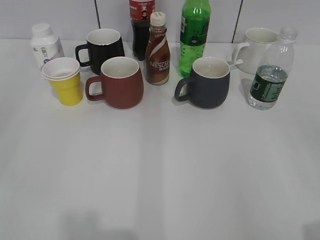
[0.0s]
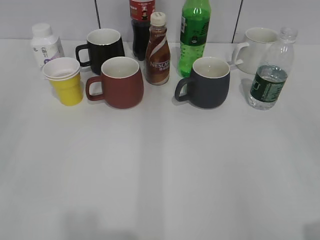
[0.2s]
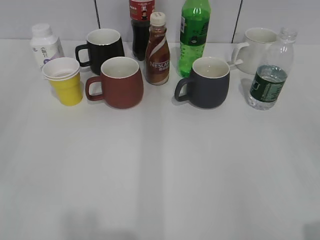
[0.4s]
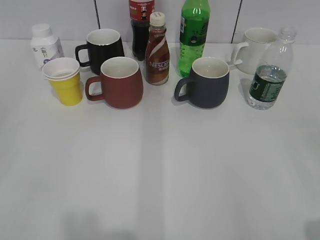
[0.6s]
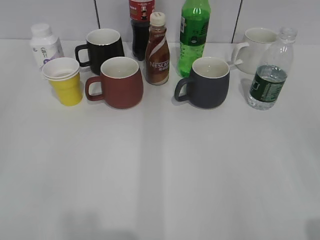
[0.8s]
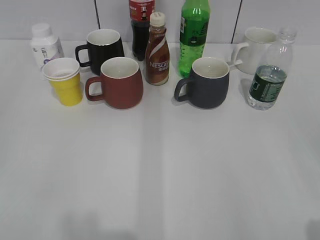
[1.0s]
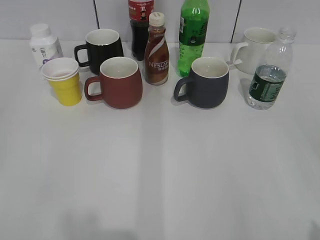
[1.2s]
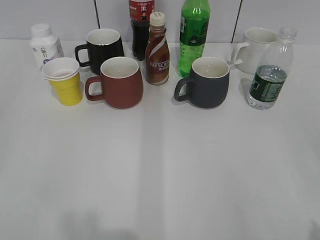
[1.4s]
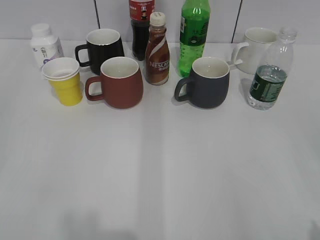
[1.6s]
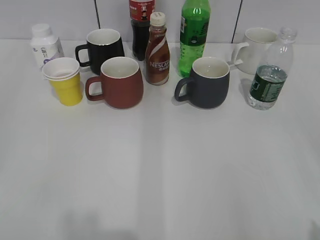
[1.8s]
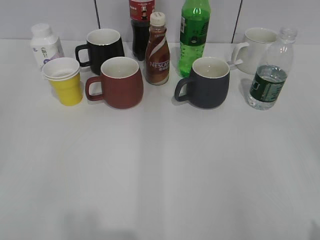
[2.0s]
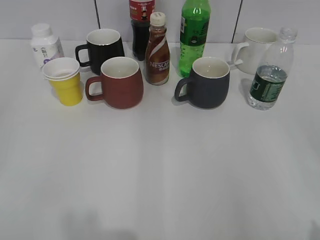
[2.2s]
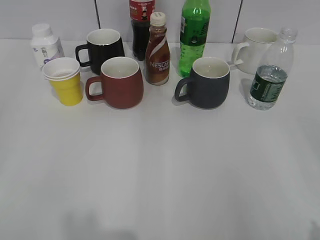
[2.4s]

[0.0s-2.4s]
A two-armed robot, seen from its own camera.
1.2s to 2.4s: Neither gripper changes place.

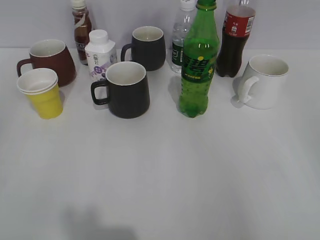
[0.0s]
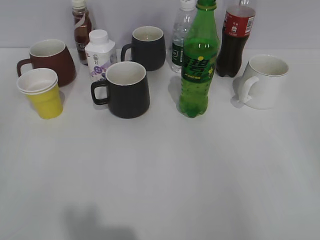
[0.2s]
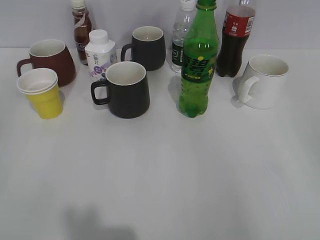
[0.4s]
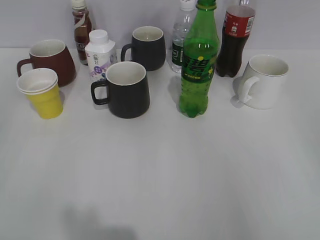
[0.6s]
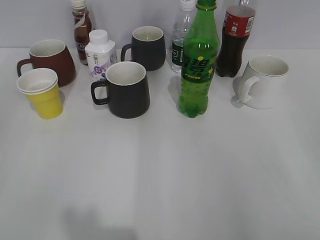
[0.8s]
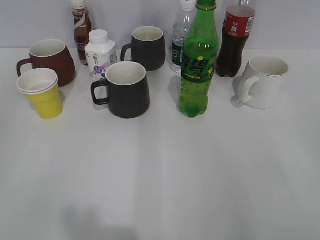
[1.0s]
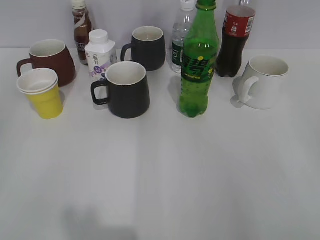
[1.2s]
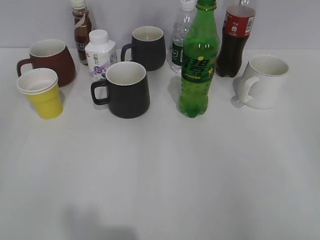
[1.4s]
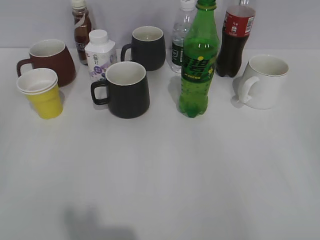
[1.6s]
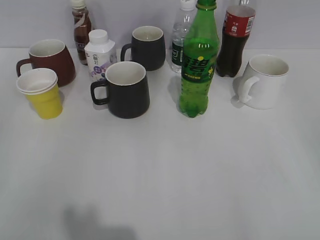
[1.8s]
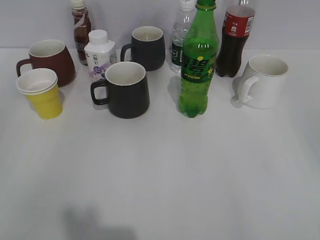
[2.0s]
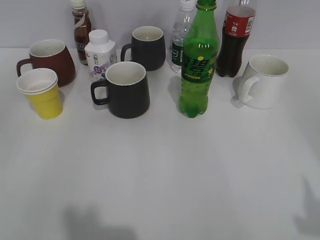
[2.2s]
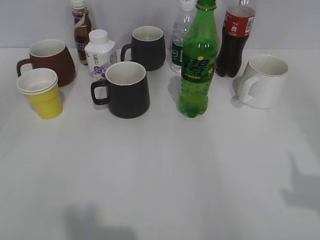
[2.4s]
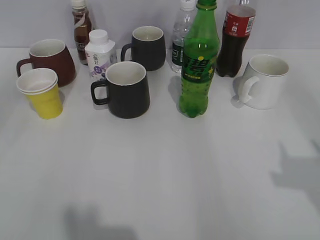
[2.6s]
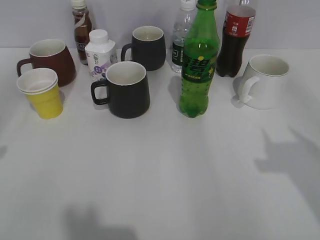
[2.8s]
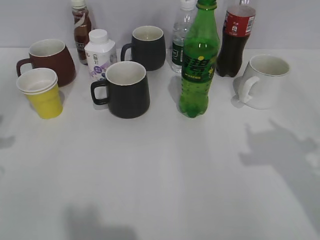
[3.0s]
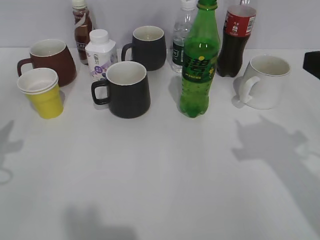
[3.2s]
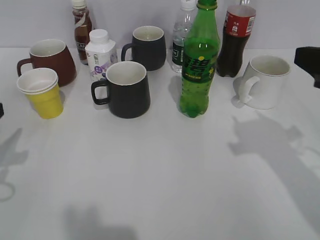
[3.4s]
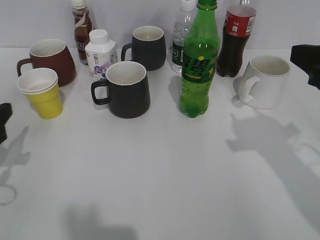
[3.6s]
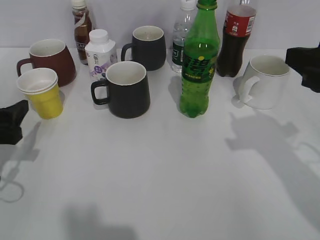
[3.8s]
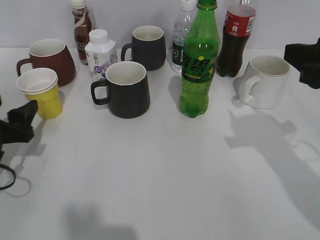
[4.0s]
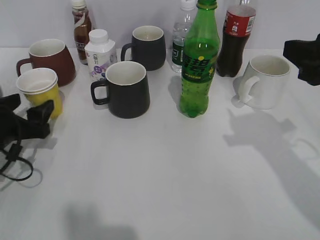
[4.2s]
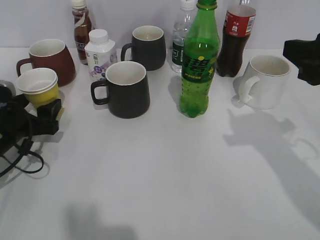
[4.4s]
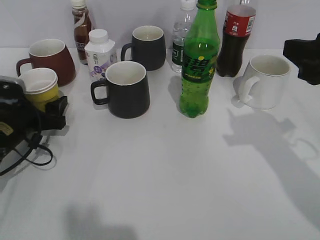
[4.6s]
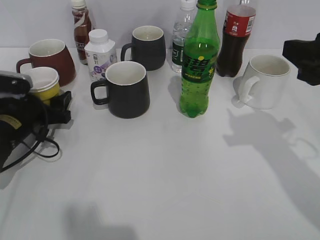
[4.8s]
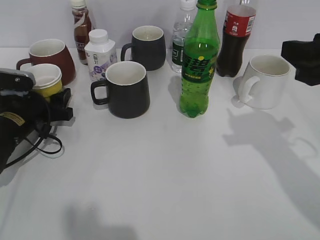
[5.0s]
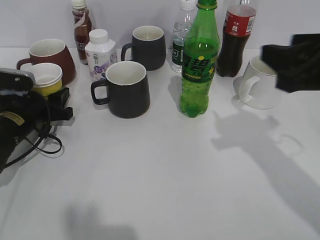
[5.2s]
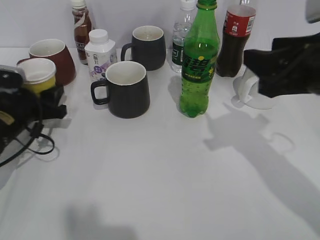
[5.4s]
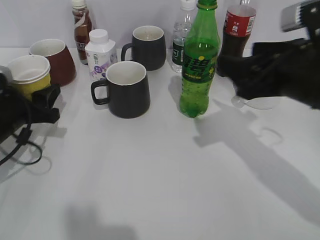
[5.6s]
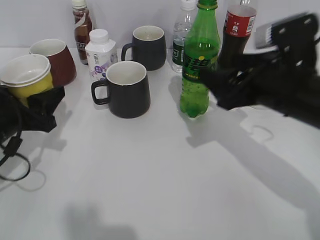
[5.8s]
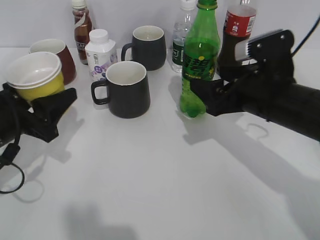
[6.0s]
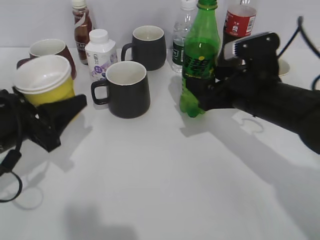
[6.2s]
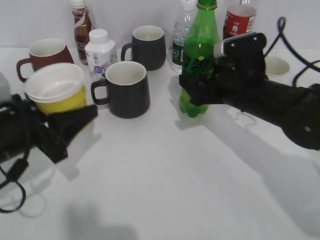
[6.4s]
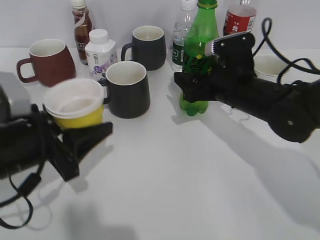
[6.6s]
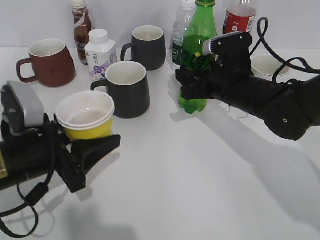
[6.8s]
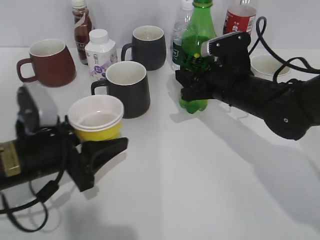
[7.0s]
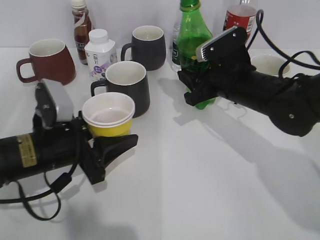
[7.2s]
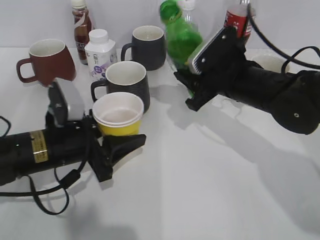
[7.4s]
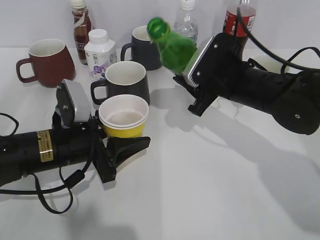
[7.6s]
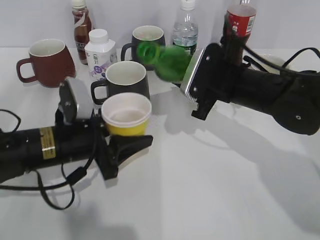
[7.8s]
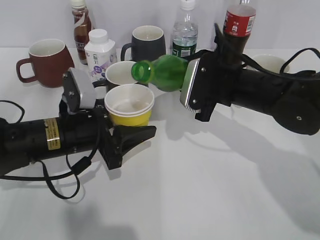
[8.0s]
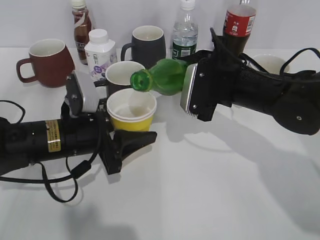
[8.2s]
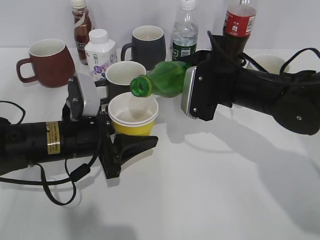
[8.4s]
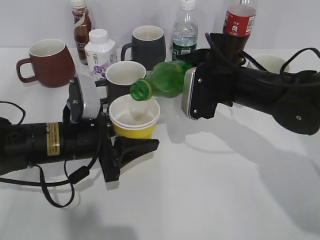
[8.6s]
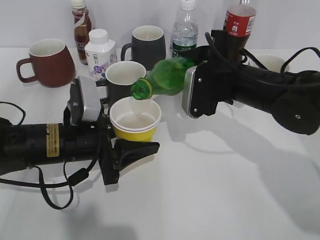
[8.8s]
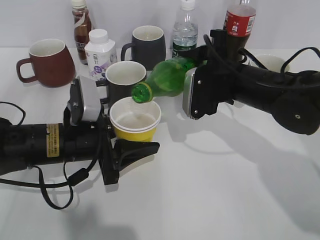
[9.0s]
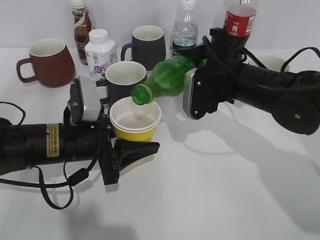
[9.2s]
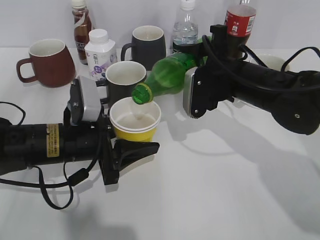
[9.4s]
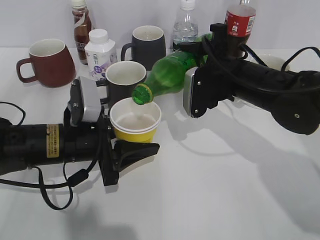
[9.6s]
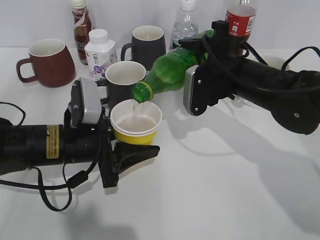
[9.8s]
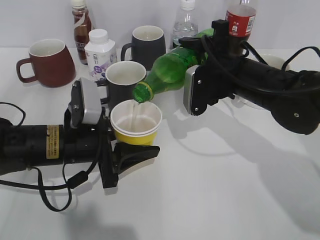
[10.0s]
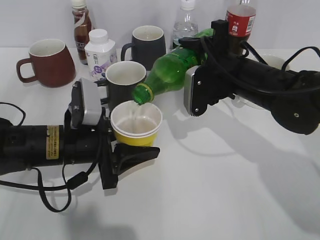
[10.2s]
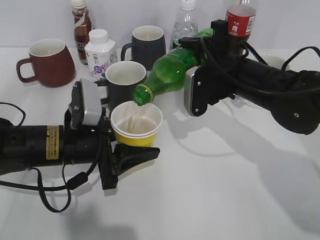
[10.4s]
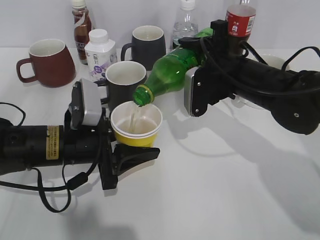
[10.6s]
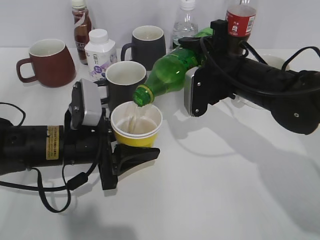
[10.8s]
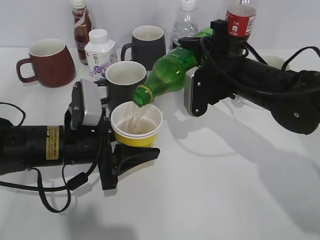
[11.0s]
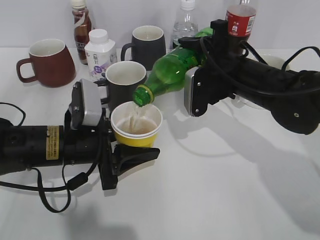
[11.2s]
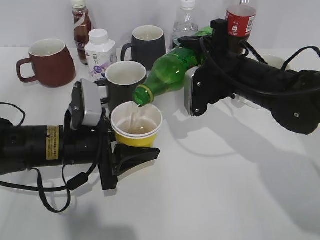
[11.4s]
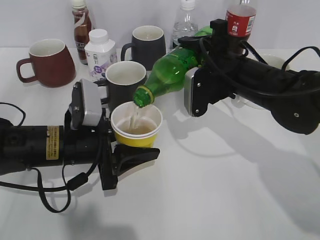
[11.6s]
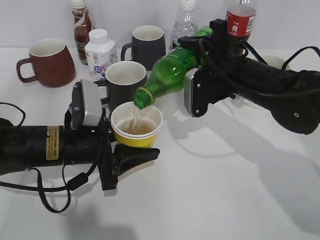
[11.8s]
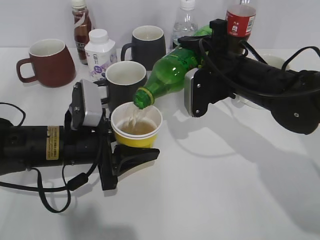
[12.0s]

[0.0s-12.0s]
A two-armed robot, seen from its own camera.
Step, 1.8s to 4.8s: Grasp the yellow paper cup with left gripper.
Step, 5.0s to 6.8s: Grasp the bottle with sprite with right gripper.
3.0s to 4.4s: The left gripper heads downward and forward, covering some 15 cm, and opens; the right gripper shifts approximately 5 cm forward.
4.4s to 6.0s: The left gripper is displaced upward by roughly 5 cm, and closes. Meanwhile the right gripper goes some 15 cm downward, to the left and forward, and opens its fingers.
6.0s to 7.6s: The left gripper is displaced to the right by about 10 cm; the right gripper goes roughly 5 cm forward, and closes its fingers.
9.0s to 10.4s: The grippers stay close to where they were, moving slightly.
10.4s to 12.0s: The two grippers keep their place.

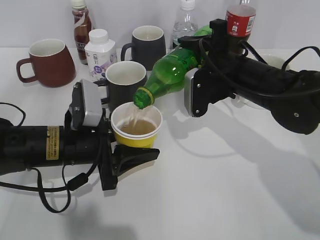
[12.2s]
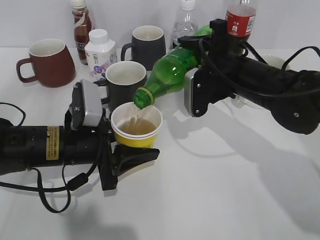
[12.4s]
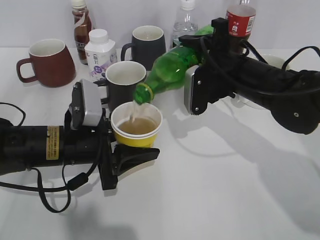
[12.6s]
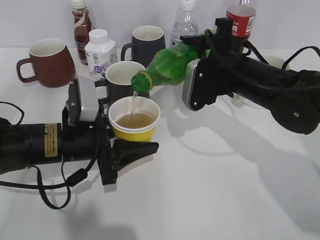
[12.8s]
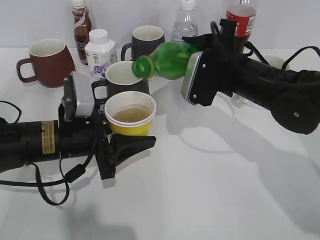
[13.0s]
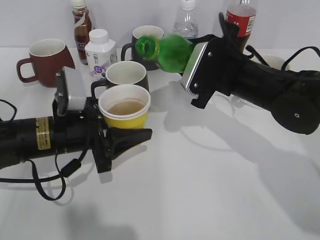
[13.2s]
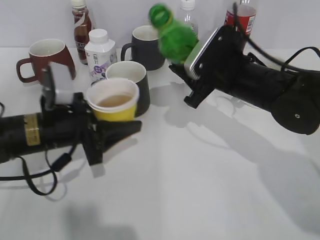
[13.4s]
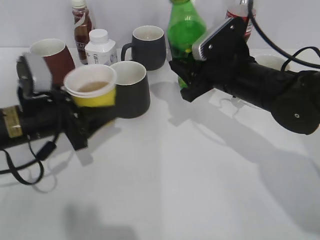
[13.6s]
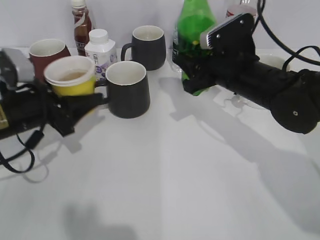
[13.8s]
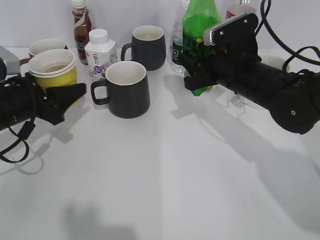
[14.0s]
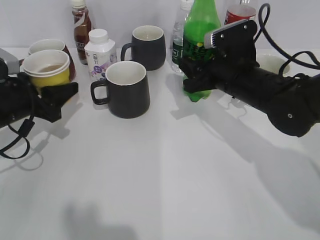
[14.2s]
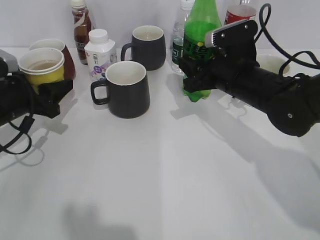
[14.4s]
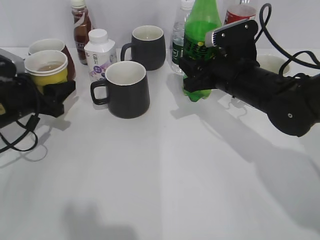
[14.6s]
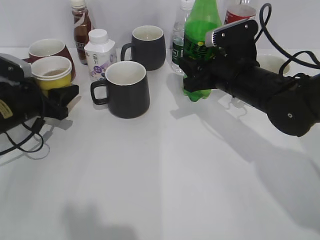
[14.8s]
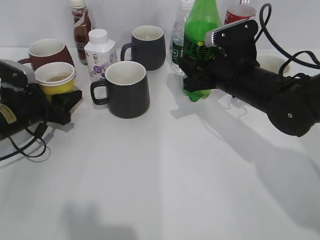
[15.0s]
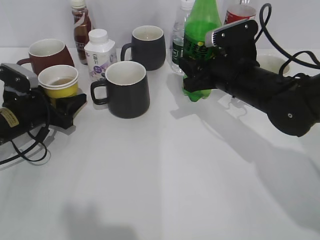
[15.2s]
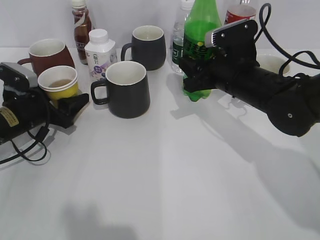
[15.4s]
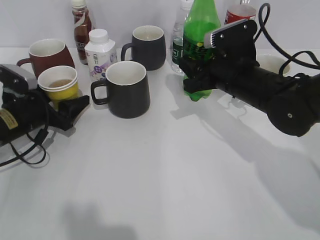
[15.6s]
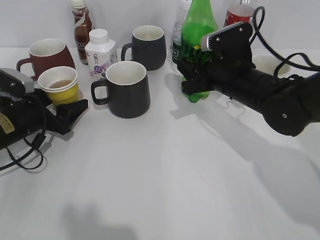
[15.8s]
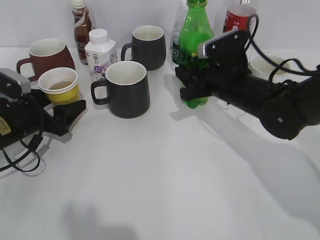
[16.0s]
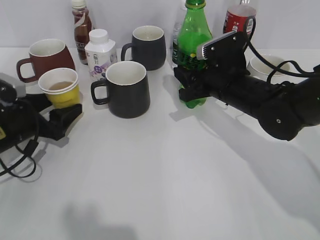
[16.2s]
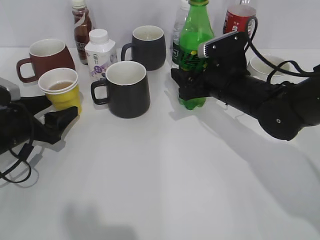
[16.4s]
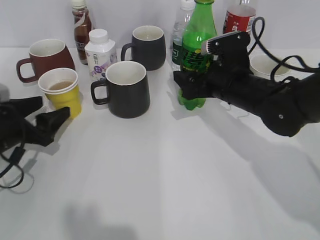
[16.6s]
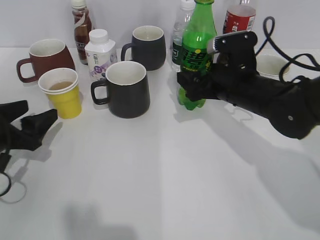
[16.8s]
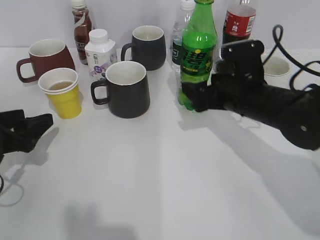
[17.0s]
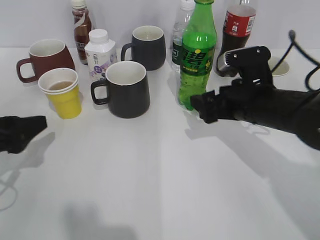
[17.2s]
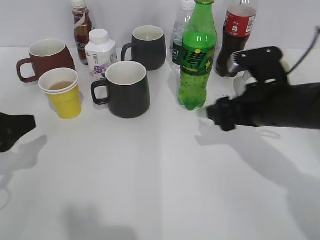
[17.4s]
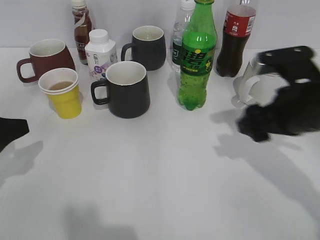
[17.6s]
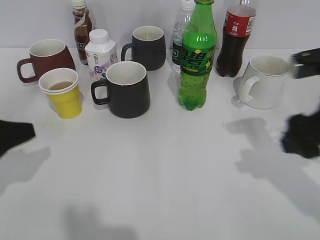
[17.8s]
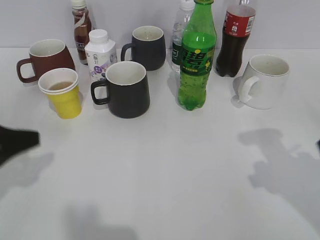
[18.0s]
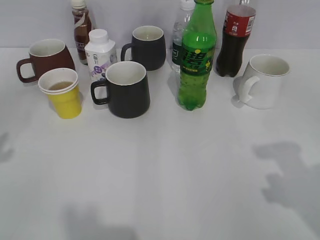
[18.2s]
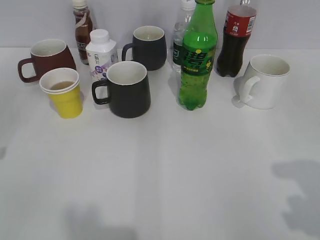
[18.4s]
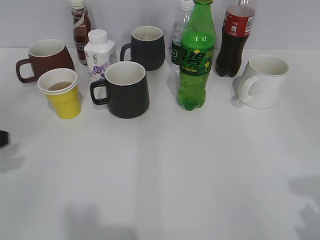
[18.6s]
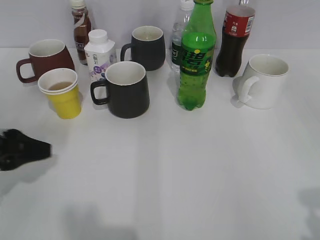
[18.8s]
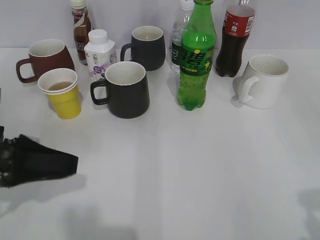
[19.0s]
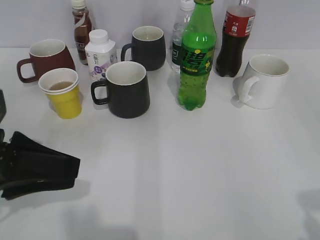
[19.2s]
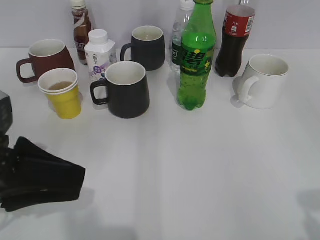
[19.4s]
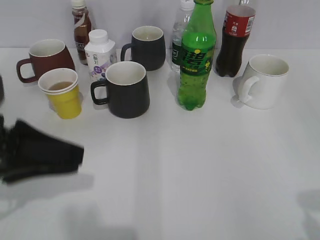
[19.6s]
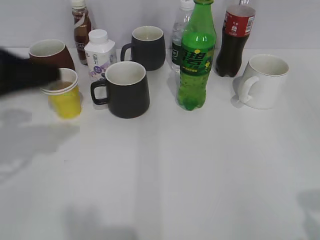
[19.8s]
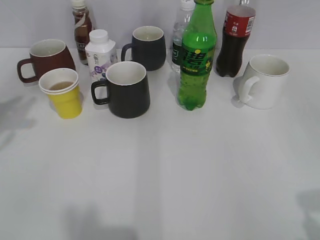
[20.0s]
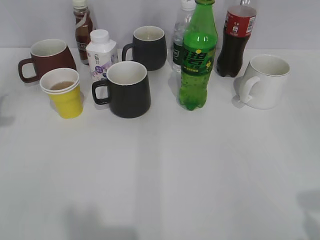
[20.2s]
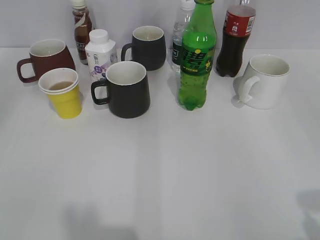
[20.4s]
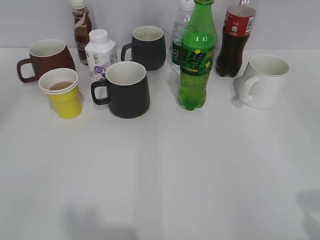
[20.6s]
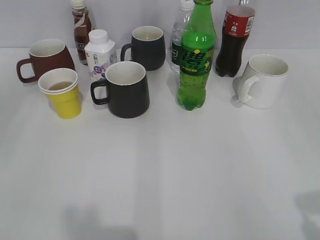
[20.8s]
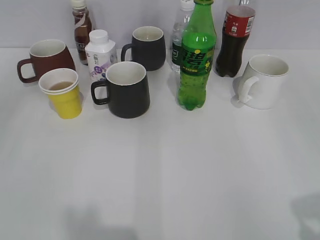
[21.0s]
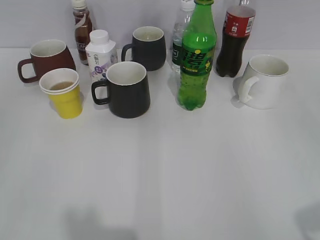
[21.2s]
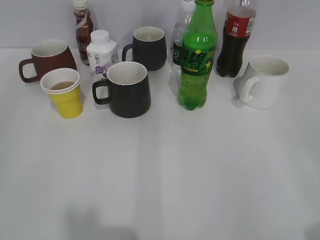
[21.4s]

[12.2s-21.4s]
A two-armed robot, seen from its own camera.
Step, 13.2s to 15.0s: Place the yellow paper cup on the table with left gripper.
Step, 15.2s to 16.8s: Place the sprite bottle on the table with right gripper.
12.2s to 13.8s: The left gripper travels to the left by roughly 10 cm.
13.8s to 15.2s: The left gripper heads downward, covering approximately 5 cm.
15.2s to 16.8s: The left gripper heads backward, covering some 10 cm, and opens; the right gripper opens.
16.8s to 18.4s: The left gripper shifts approximately 10 cm upward and backward, and closes its fingers, while the right gripper heads backward, upward and to the right, covering approximately 35 cm.
18.4s to 19.8s: The left gripper shifts some 10 cm to the right and upward, and closes. Meanwhile the right gripper moves backward, approximately 5 cm.
19.8s to 21.4s: The left gripper goes roughly 25 cm backward and to the left.
